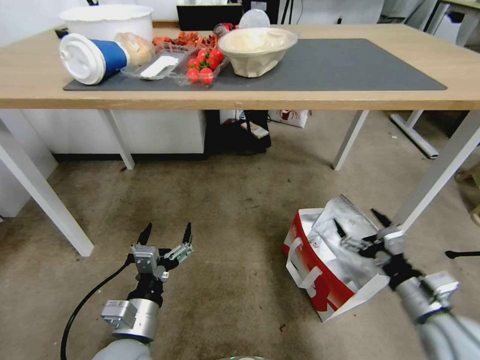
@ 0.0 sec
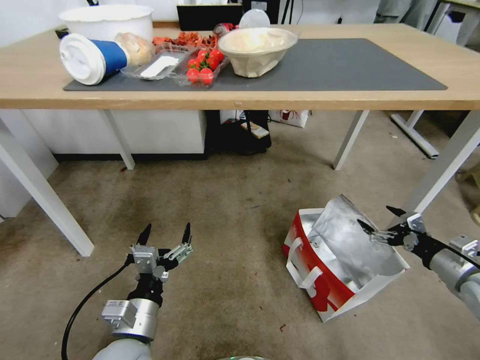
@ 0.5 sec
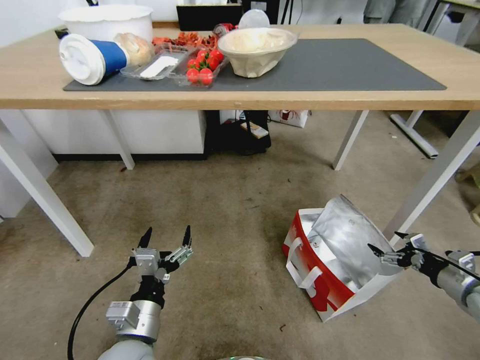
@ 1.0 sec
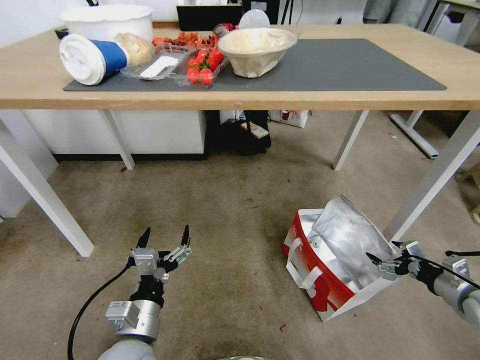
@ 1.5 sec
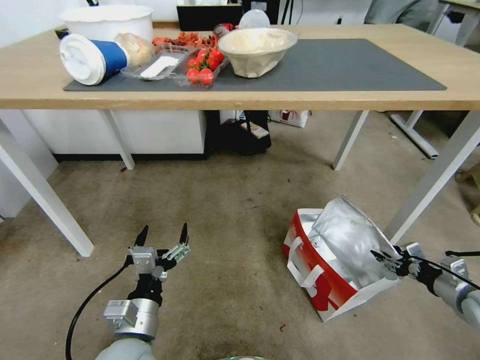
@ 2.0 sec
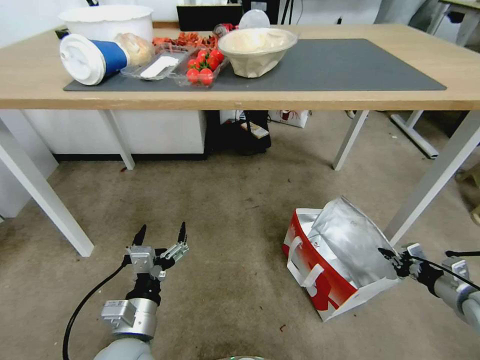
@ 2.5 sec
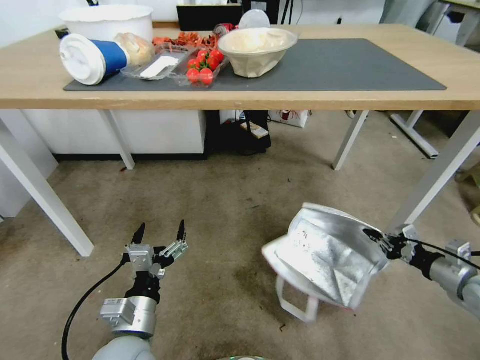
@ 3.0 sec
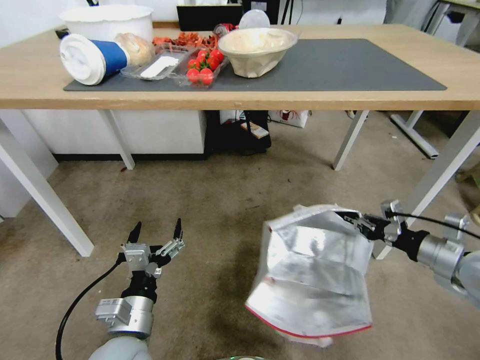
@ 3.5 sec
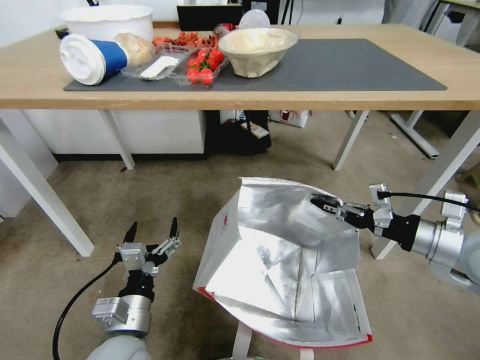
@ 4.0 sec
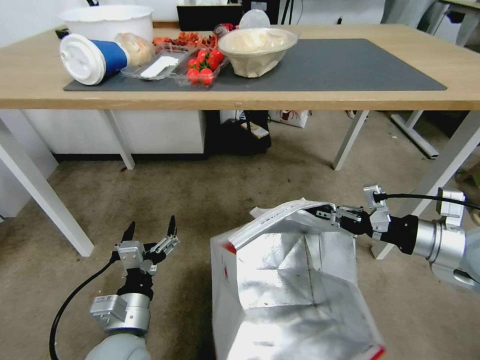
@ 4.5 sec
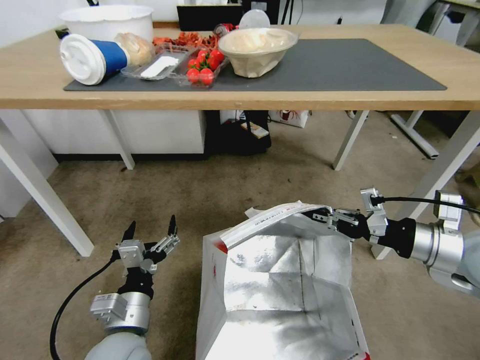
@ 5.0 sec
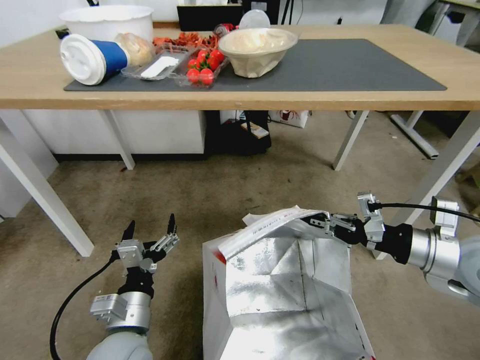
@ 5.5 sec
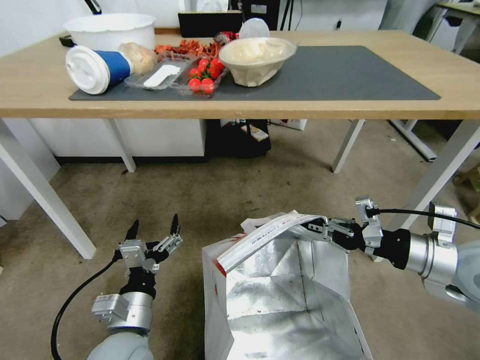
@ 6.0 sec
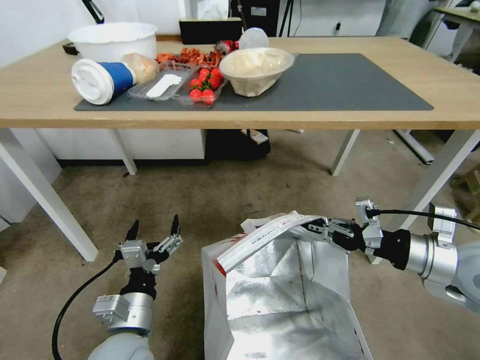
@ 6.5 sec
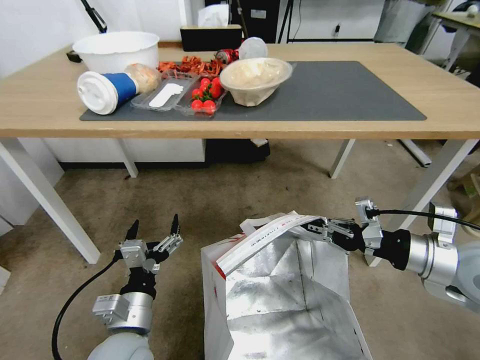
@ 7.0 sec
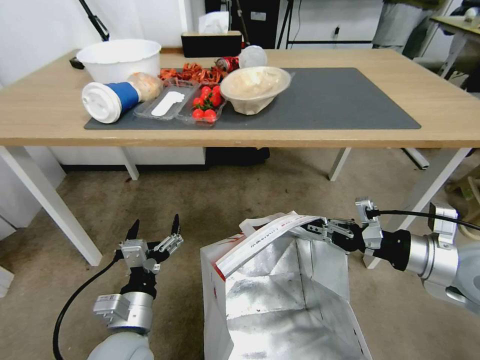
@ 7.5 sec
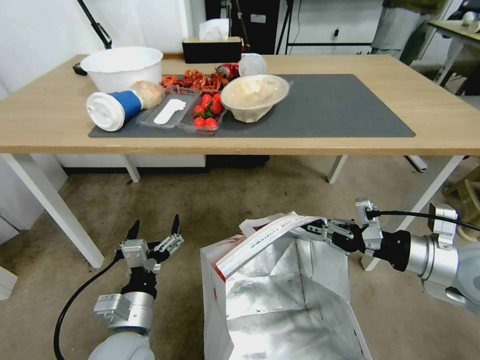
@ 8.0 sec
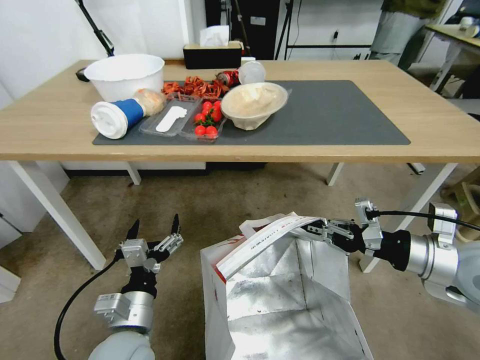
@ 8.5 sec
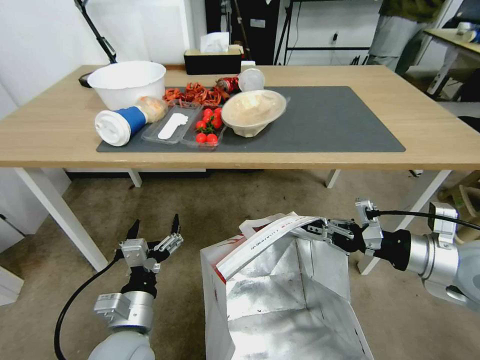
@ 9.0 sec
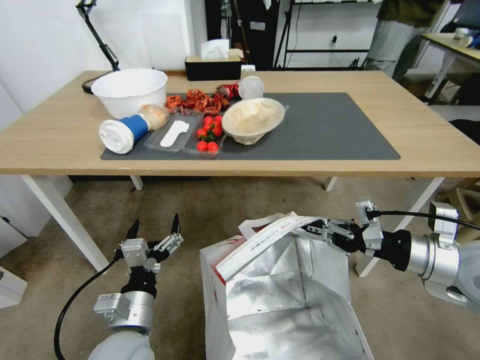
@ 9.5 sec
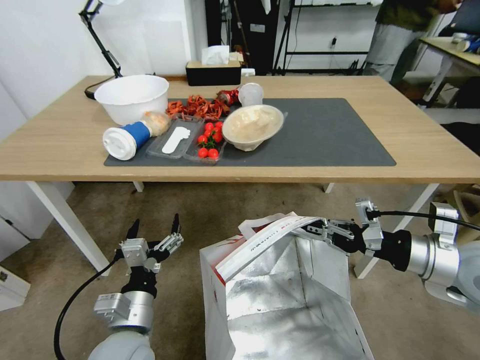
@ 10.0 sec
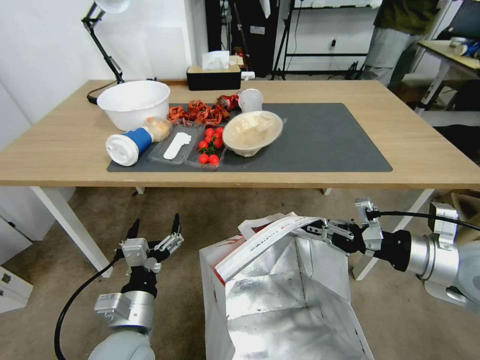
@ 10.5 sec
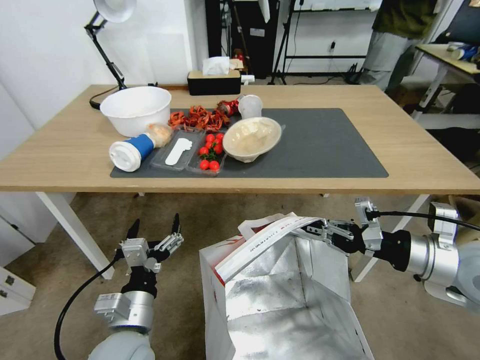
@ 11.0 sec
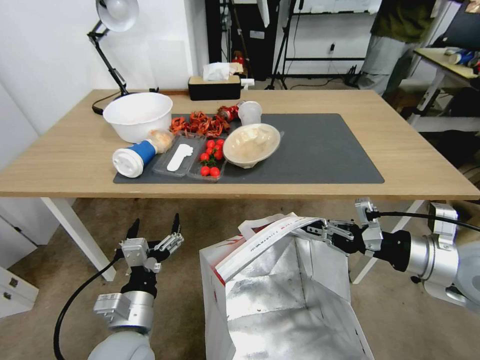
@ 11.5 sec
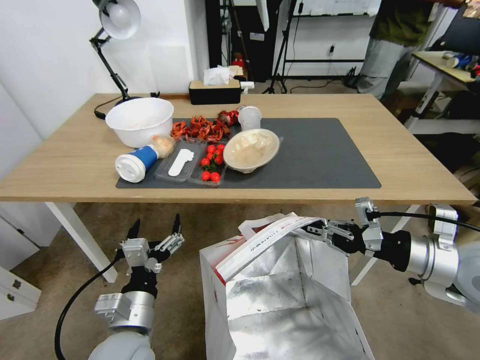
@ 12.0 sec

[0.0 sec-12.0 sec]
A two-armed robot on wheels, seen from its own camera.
Task of the whole recording: Pick up the food delivery bag from the floor and place it on the table.
0.0 sec to 2.0 sec: The right gripper travels to the right and downward by roughly 20 cm, and closes.
2.0 sec to 4.0 sec: The right gripper shifts roughly 25 cm upward and to the left, and closes up.

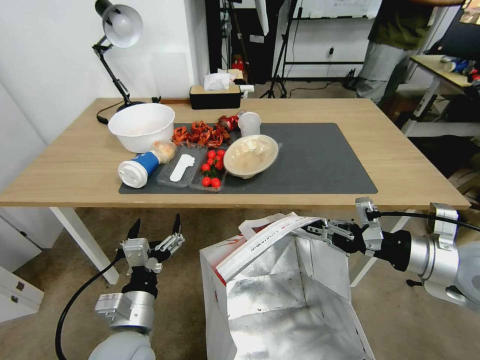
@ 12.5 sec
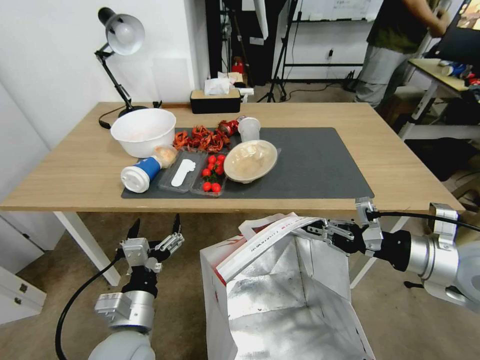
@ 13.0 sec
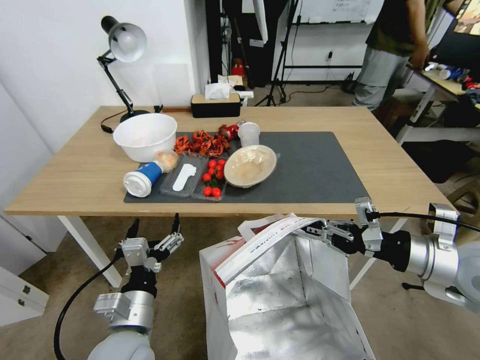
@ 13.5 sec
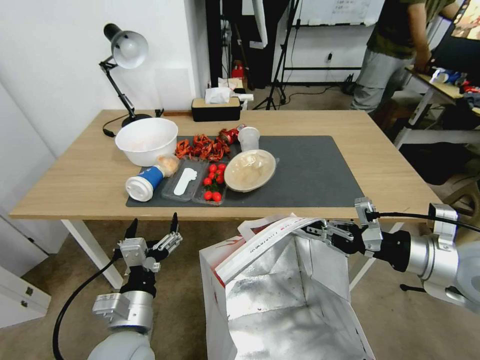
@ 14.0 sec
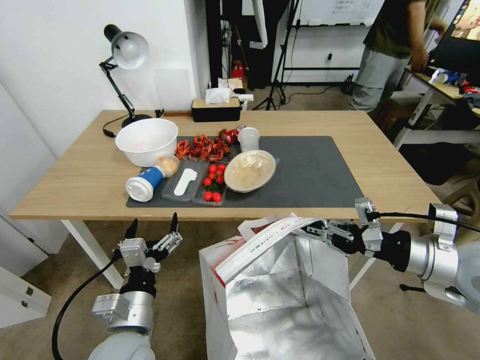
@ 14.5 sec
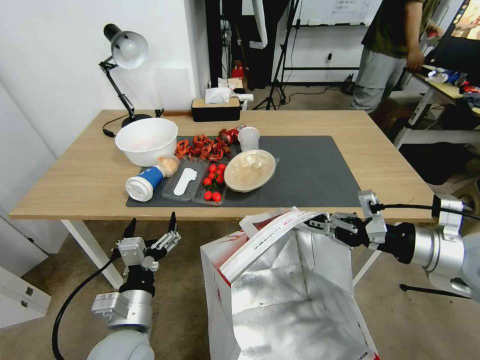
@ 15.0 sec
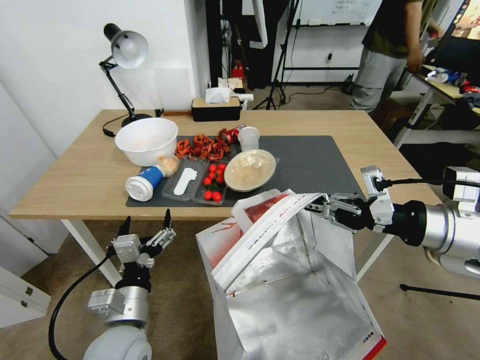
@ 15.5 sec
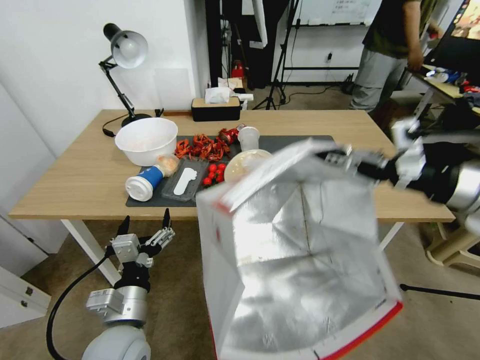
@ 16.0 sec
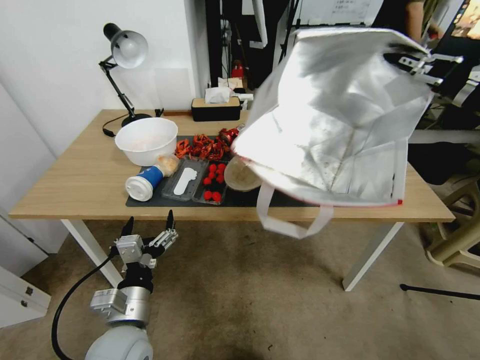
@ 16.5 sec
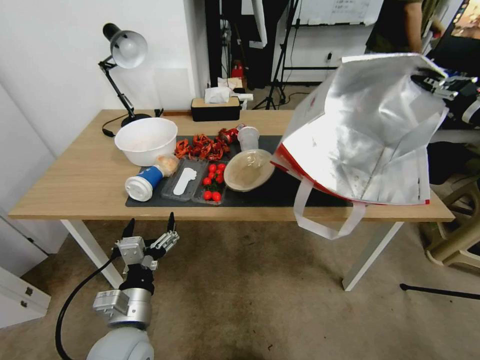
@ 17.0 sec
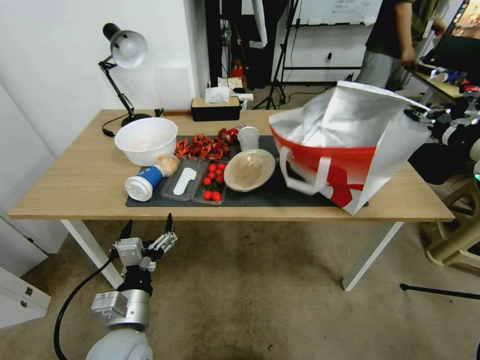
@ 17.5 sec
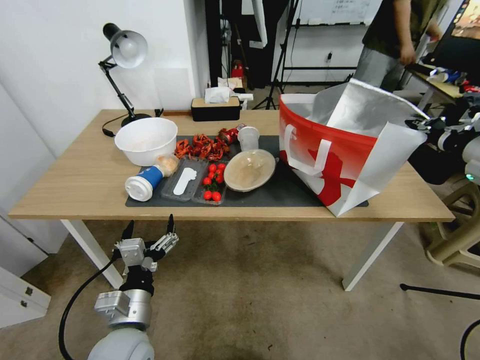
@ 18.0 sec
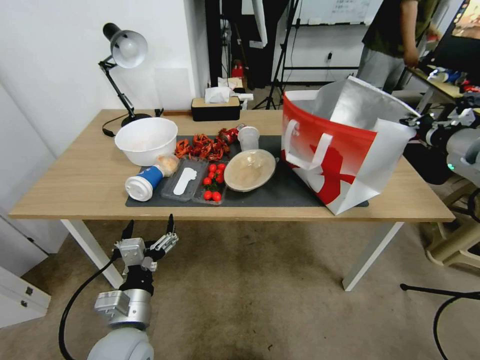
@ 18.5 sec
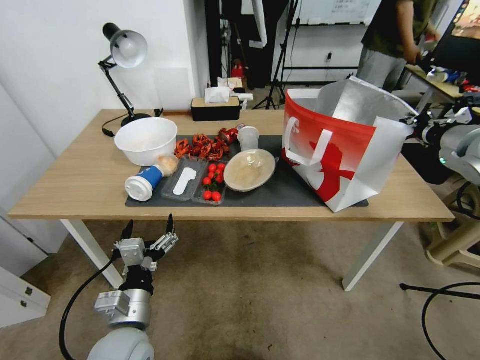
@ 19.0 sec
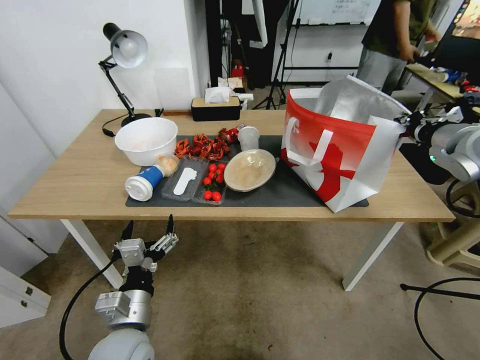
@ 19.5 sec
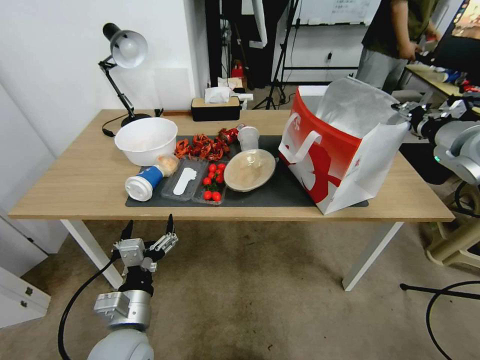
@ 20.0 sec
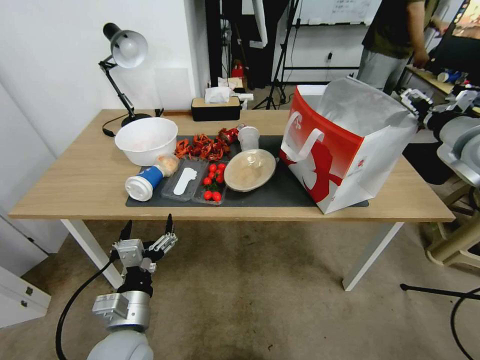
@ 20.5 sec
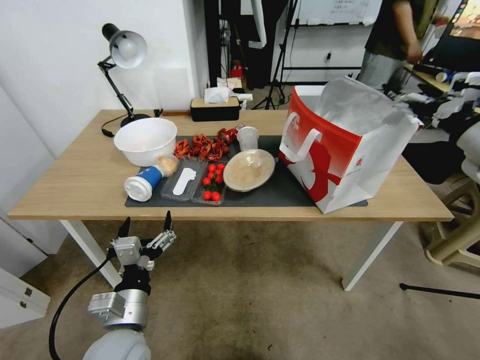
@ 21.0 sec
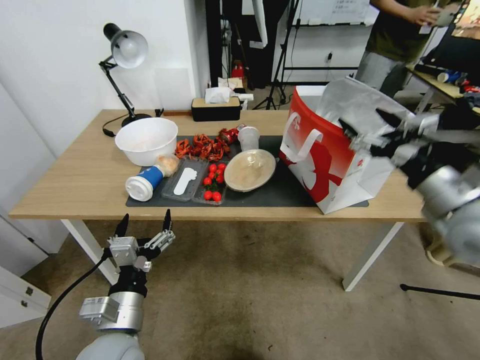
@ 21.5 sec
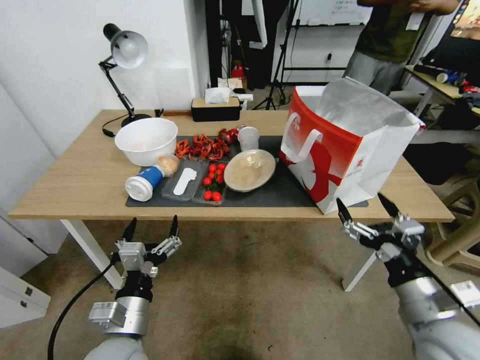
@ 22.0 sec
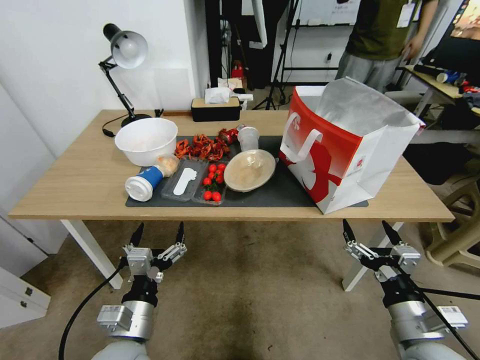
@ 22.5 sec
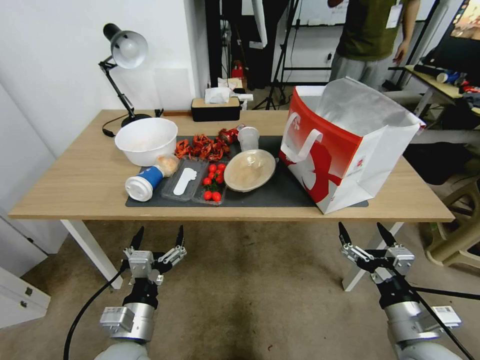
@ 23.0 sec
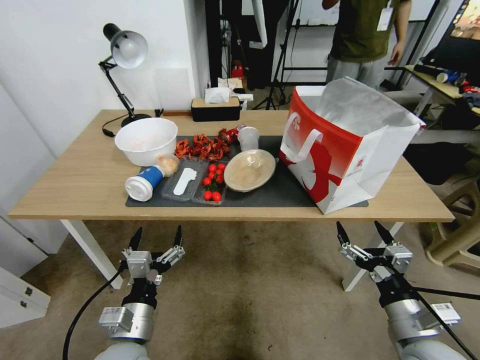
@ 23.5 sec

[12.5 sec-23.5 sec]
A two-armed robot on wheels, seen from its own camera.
Task of the whole recording: Pick up the food delivery bag from the floor and place it on the table.
14.5 sec to 16.0 sec: The right gripper shifts about 15 cm upward.
16.0 sec to 18.0 sec: The right gripper goes some 15 cm to the right and forward.
18.0 sec to 20.0 sec: The right gripper ends up some 5 cm from where it was.
20.0 sec to 21.5 sec: The right gripper moves backward, to the left and downward, approximately 15 cm, and opens up.
21.5 sec to 23.5 sec: The right gripper shifts roughly 25 cm downward and backward.
